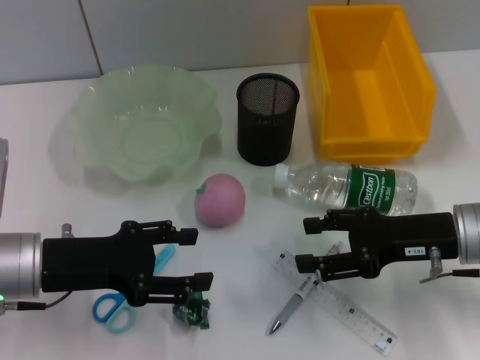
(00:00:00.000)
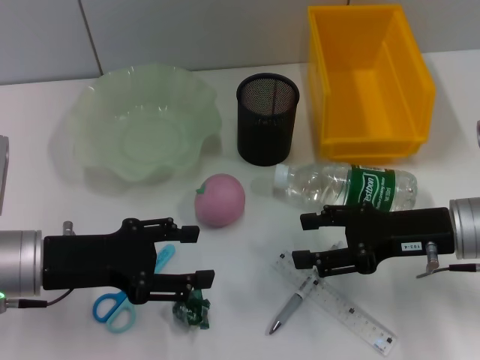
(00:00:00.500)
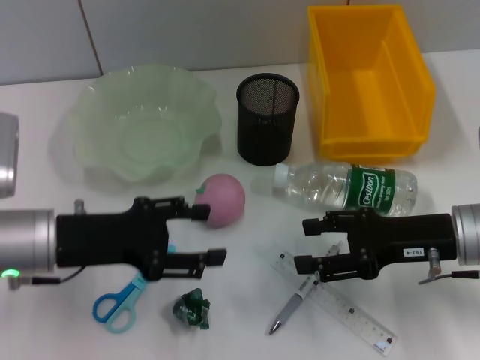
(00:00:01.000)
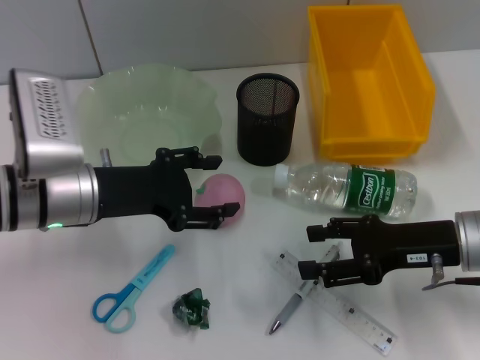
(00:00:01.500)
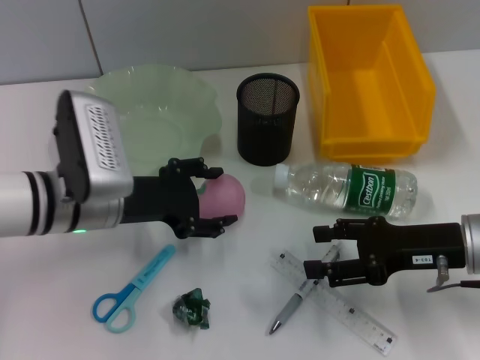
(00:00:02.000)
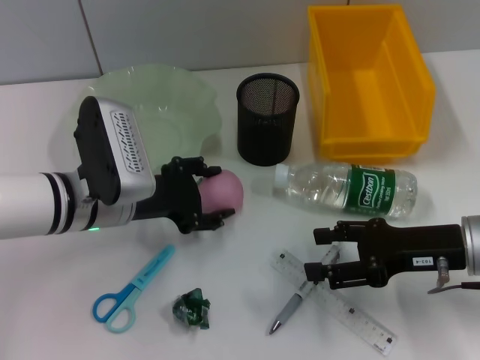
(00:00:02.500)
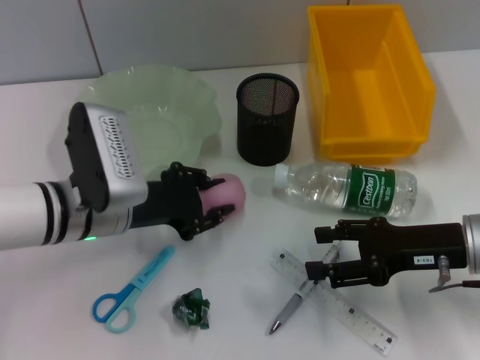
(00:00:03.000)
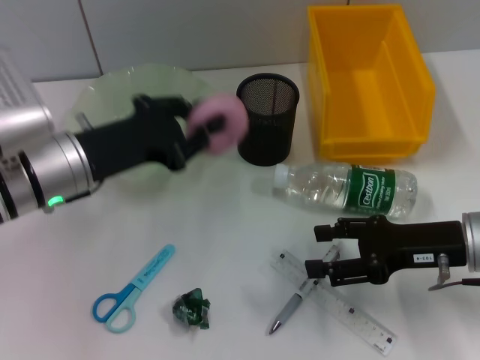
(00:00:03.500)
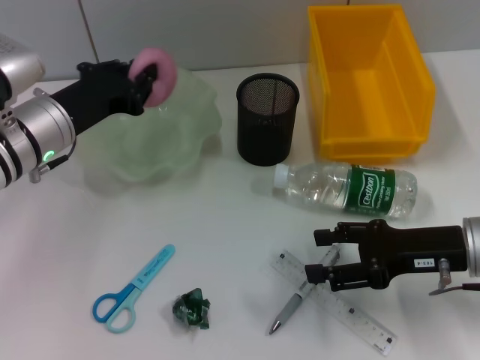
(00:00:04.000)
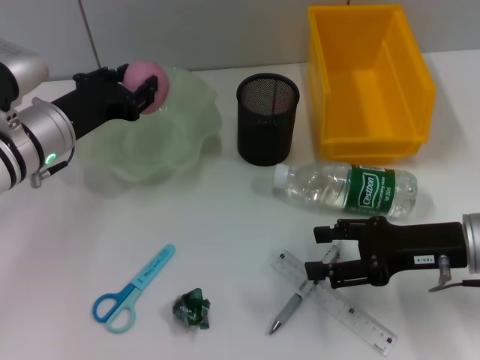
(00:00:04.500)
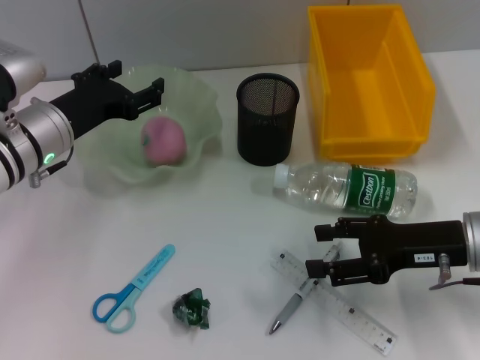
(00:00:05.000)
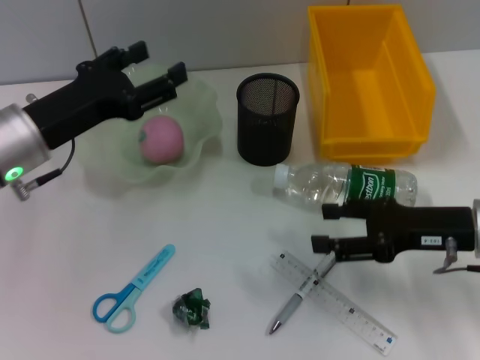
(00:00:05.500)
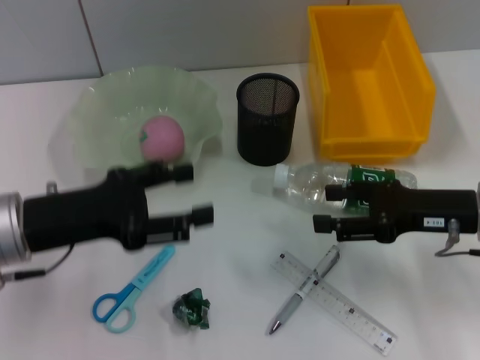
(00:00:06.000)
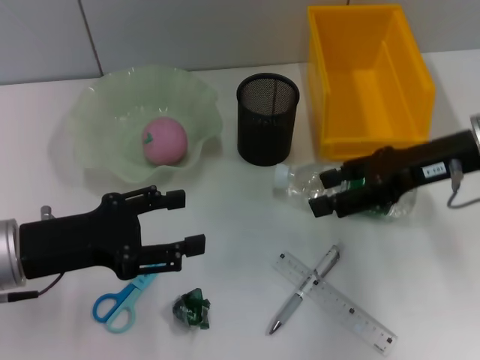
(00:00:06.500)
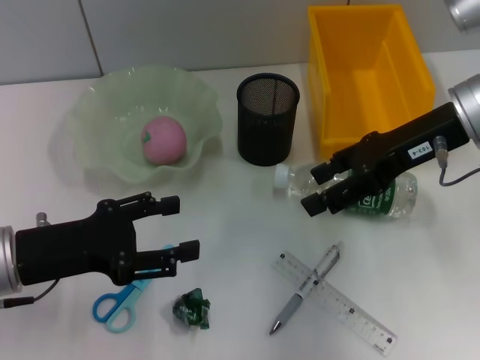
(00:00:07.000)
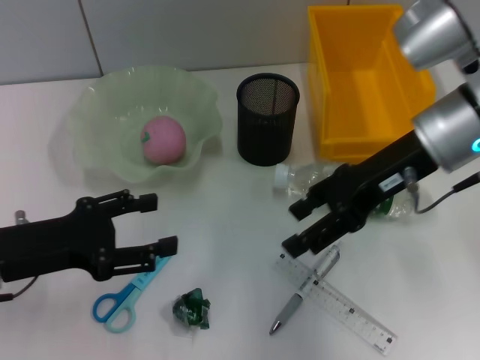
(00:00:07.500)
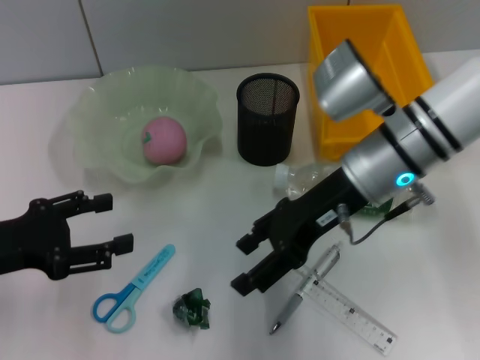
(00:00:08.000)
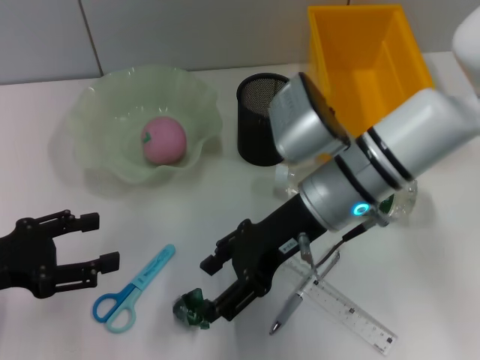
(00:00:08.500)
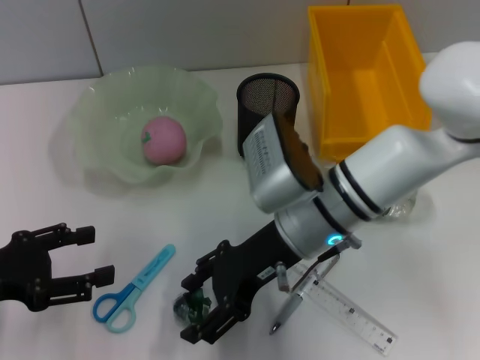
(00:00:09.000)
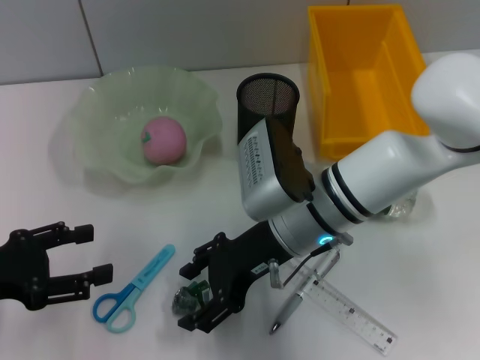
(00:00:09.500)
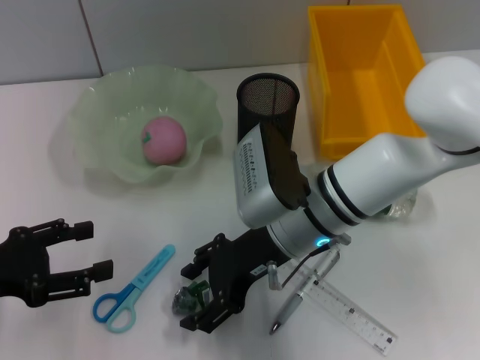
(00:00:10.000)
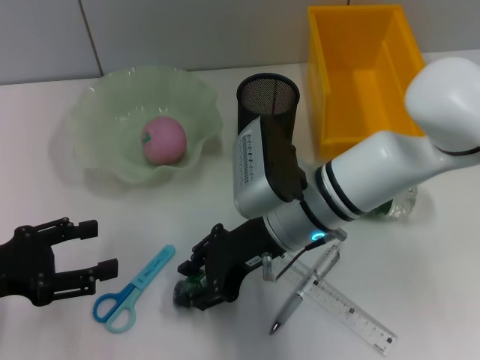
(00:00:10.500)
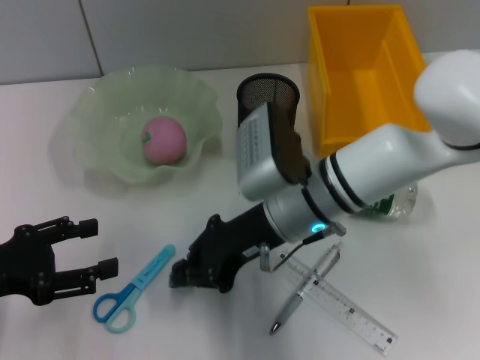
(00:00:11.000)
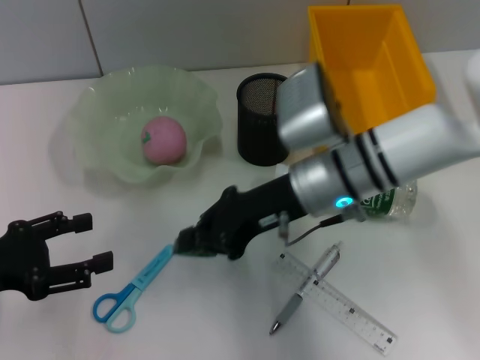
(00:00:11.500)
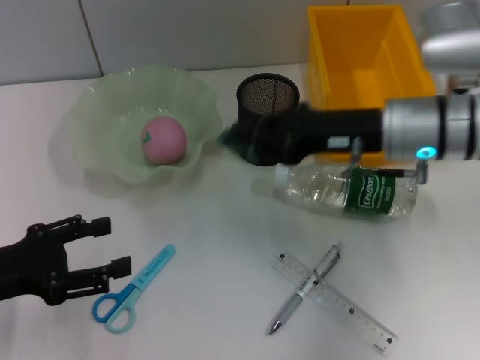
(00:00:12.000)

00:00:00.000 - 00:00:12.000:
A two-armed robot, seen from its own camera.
Step, 00:00:00.000 - 00:00:02.000: Grab the peach with the left hand.
Step, 00:00:02.500 - 00:00:04.500: Place the peach into the fruit bowl with the left hand.
Step, 00:00:05.000 - 00:00:10.500: Grab the plastic with the right hand.
00:00:00.000 - 00:00:02.000: The left gripper shifts about 10 cm to the right and forward.
00:00:02.000 - 00:00:04.000: The left gripper shifts by some 5 cm, and closes its fingers.
00:00:04.000 - 00:00:06.000: The left gripper heads backward, covering some 10 cm, and opens.
00:00:06.000 - 00:00:08.000: The right gripper goes some 15 cm to the left, upward and forward. The left gripper heads to the left, covering about 5 cm.
00:00:08.000 - 00:00:10.000: The right gripper shifts about 10 cm to the left and downward.
00:00:10.000 - 00:00:12.000: The right gripper moves to the right and upward, approximately 10 cm, and closes its fingers.

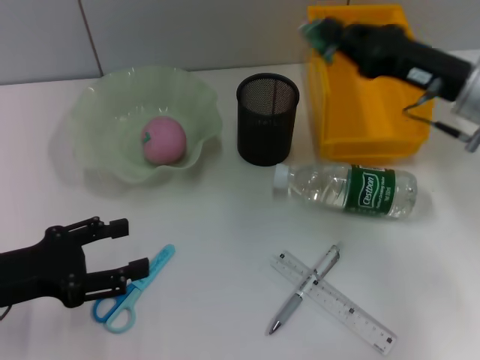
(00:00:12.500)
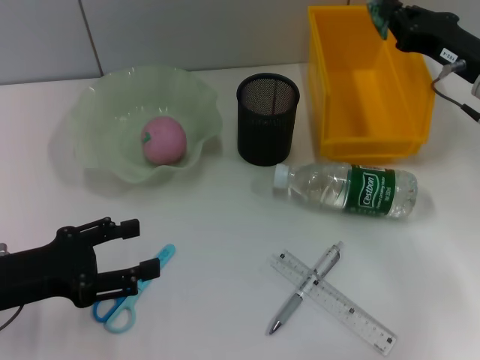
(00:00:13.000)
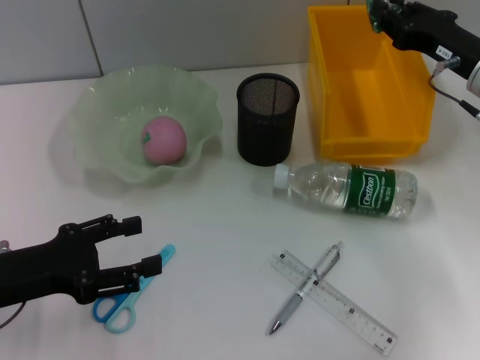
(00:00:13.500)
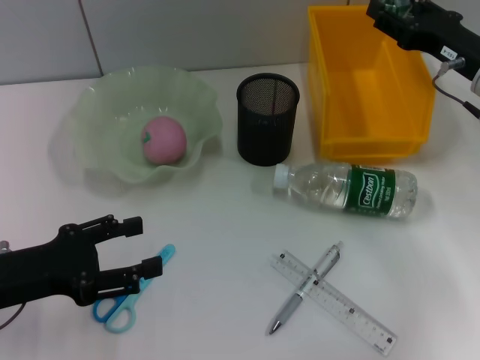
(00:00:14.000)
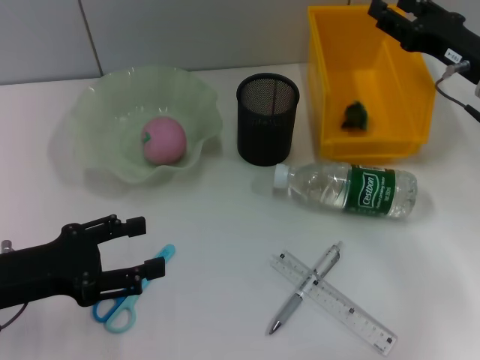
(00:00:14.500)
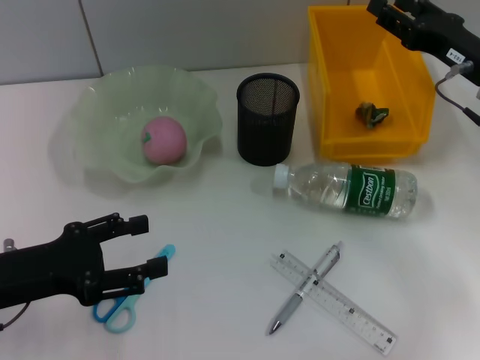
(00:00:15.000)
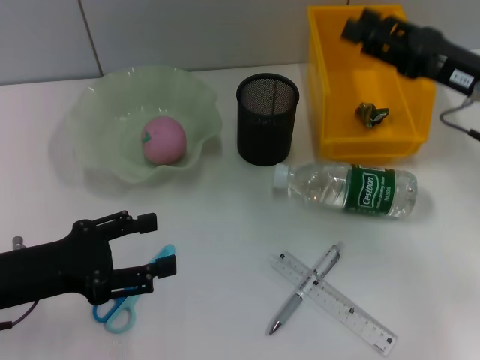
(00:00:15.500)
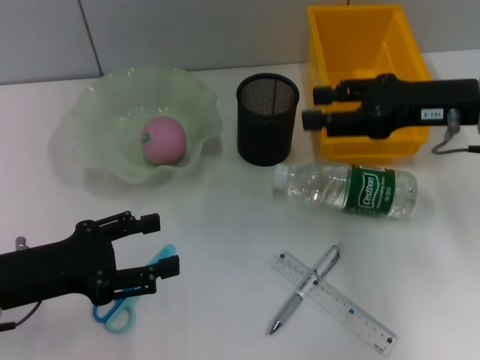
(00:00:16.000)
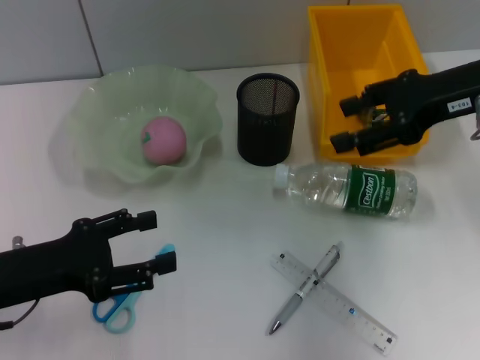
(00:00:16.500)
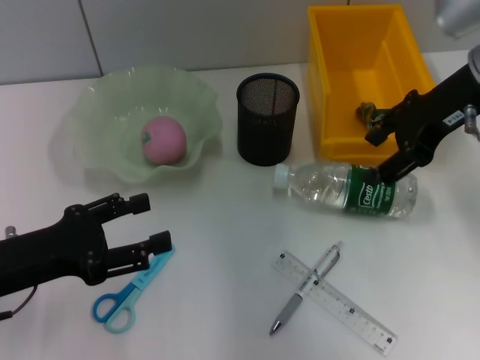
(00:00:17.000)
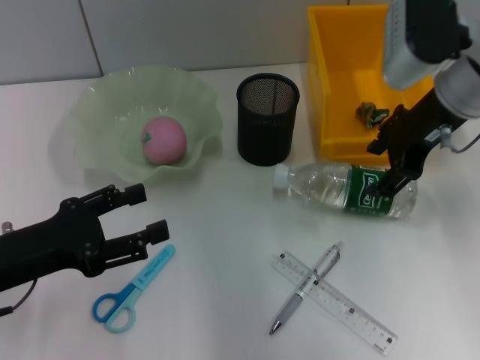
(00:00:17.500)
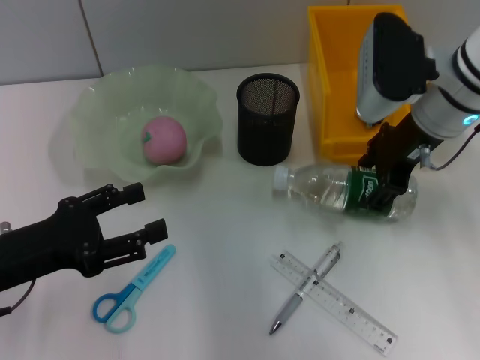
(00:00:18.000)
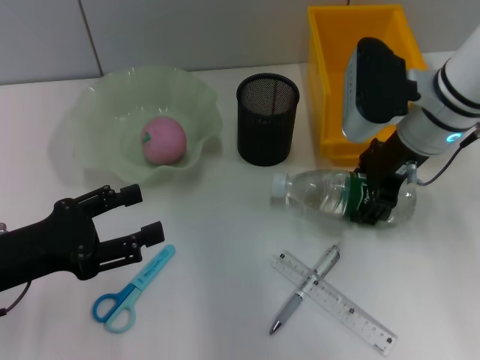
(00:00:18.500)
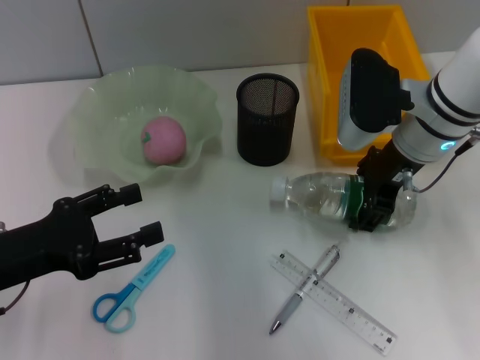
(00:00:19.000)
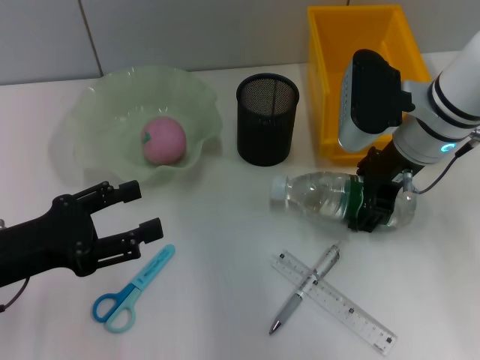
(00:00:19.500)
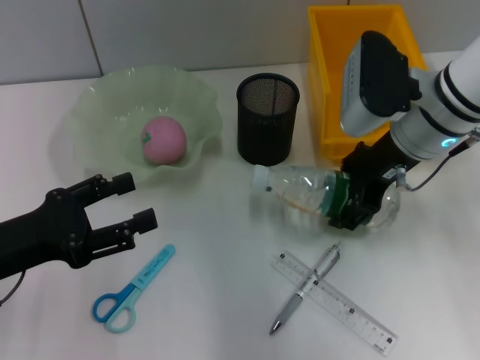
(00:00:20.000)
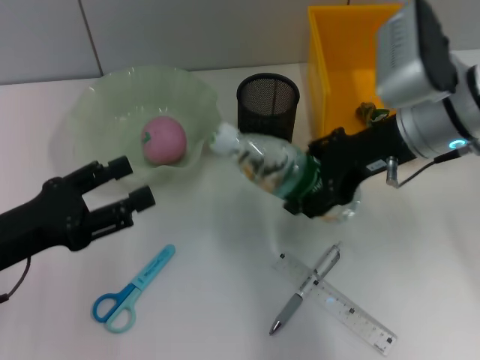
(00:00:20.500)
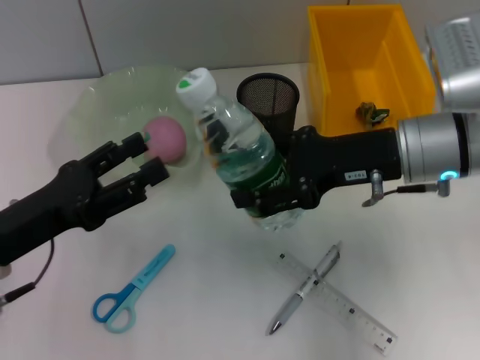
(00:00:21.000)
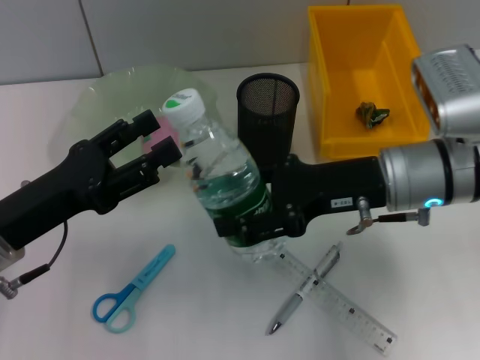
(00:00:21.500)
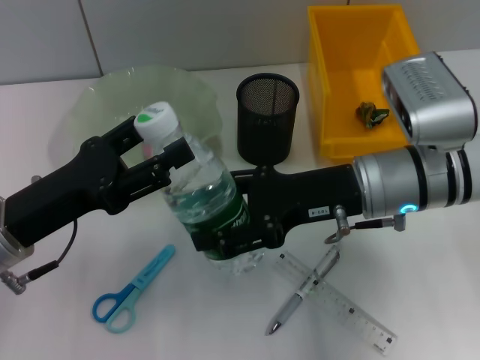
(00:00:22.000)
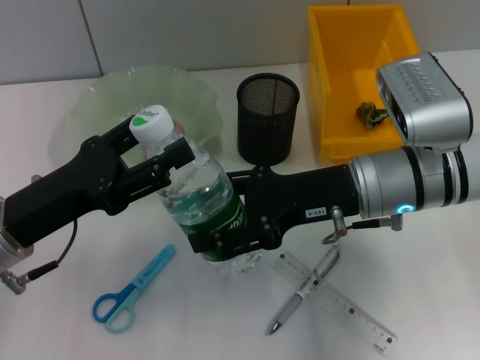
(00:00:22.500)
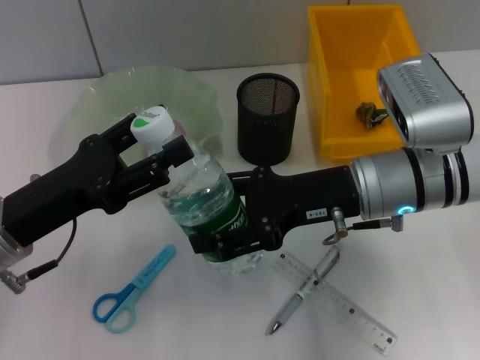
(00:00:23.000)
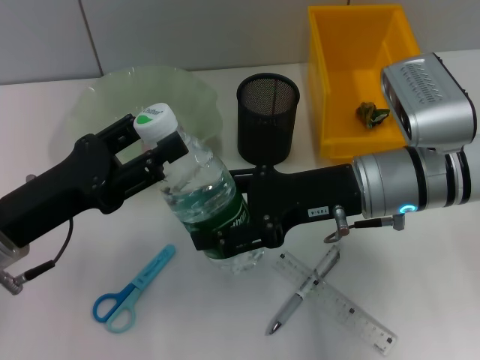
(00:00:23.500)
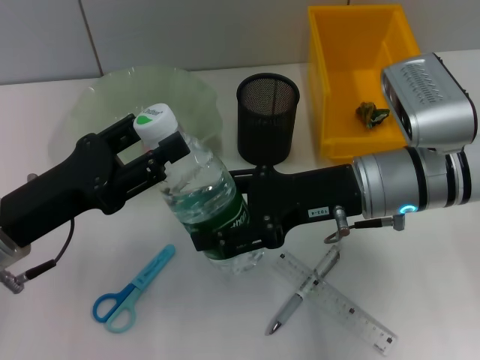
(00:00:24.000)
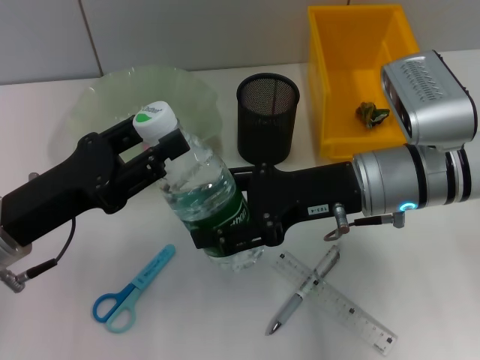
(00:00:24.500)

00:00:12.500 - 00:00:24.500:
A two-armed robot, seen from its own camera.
Step, 00:00:12.500 - 00:00:14.500: Place the plastic into the trash can with the right hand.
Step, 00:00:15.000 - 00:00:19.000: Grab the water bottle with the right hand.
00:00:12.500 - 00:00:14.500: The right gripper opens its fingers.
00:00:14.500 - 00:00:16.500: The right gripper travels upward by approximately 10 cm.
00:00:16.500 - 00:00:18.500: The right gripper travels to the left and downward by about 10 cm.
00:00:20.500 - 00:00:22.500: The right gripper travels downward by roughly 5 cm.
00:00:22.500 - 00:00:24.500: The two grippers keep their place.

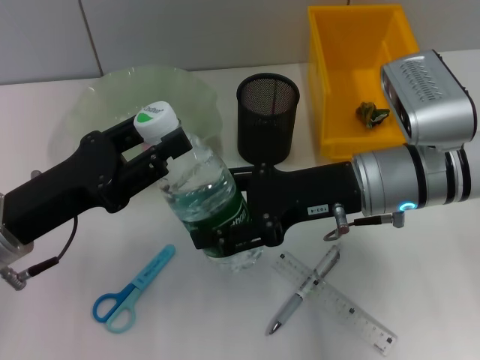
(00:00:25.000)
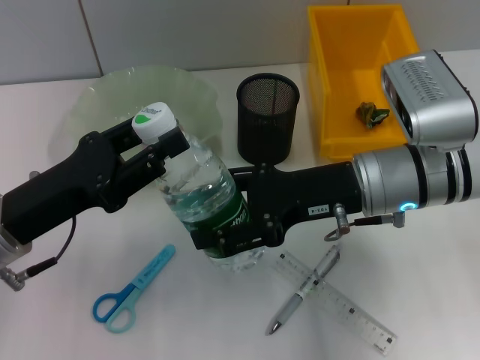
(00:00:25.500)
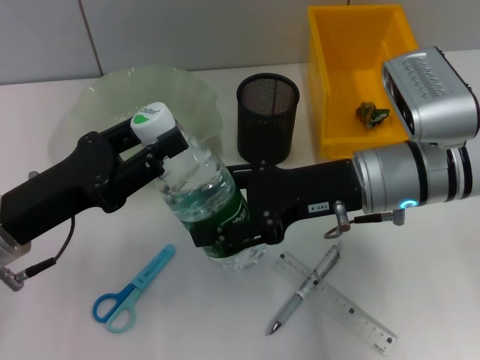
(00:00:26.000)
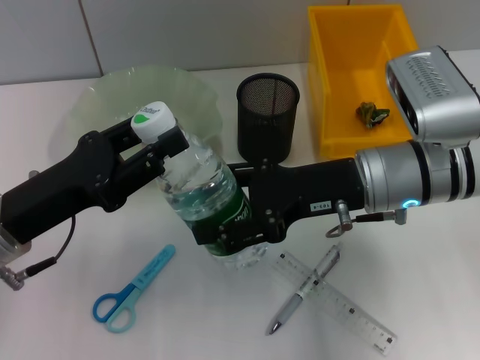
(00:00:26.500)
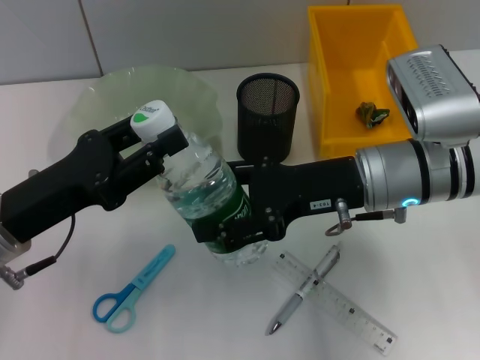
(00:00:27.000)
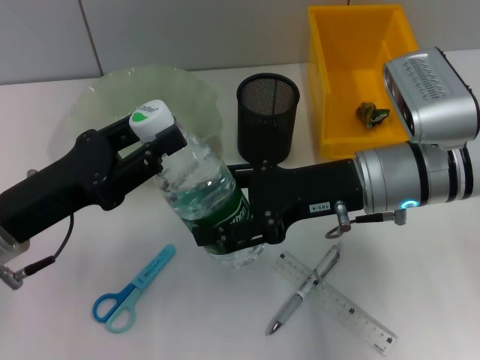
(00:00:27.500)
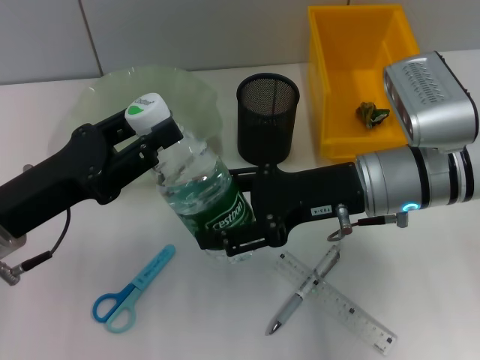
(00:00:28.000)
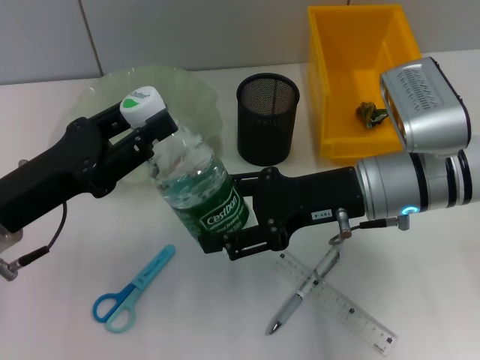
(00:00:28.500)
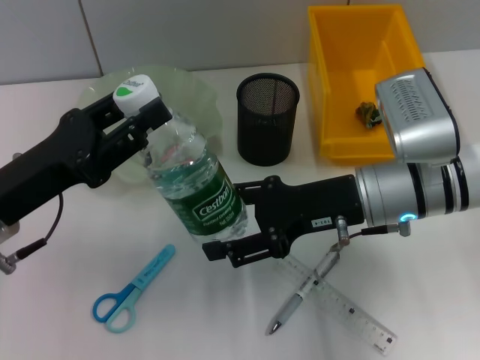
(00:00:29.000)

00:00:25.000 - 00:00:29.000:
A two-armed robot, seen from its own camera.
00:00:25.000 - 00:00:27.000: The two grippers keep their place.
